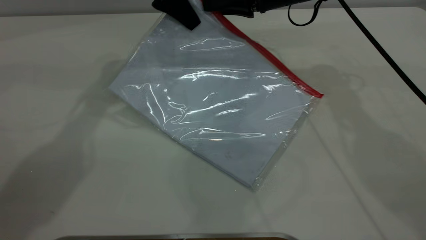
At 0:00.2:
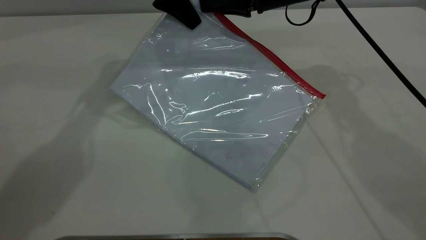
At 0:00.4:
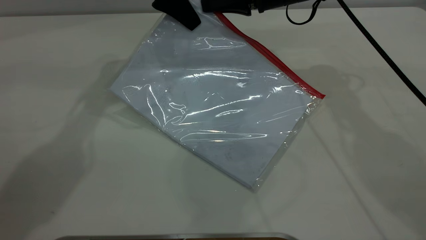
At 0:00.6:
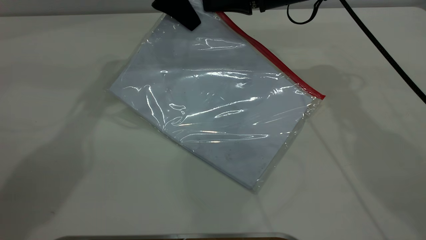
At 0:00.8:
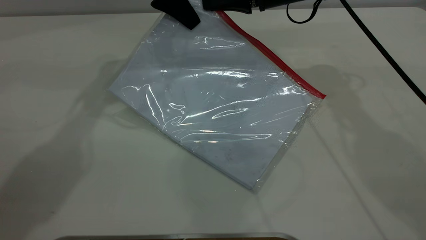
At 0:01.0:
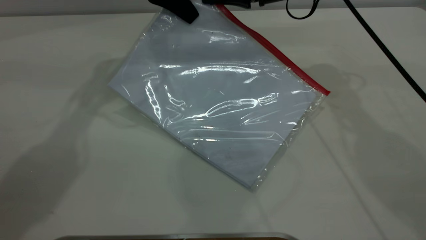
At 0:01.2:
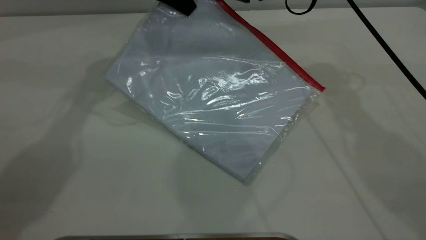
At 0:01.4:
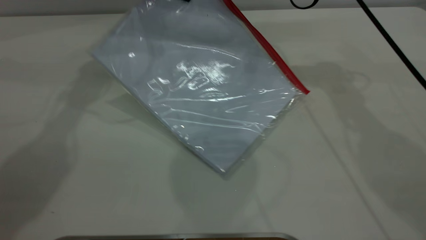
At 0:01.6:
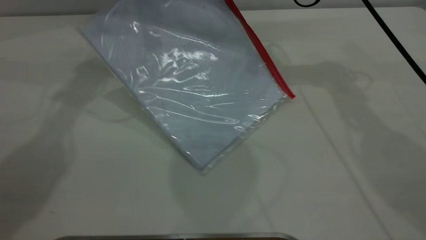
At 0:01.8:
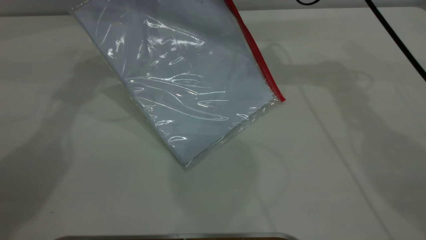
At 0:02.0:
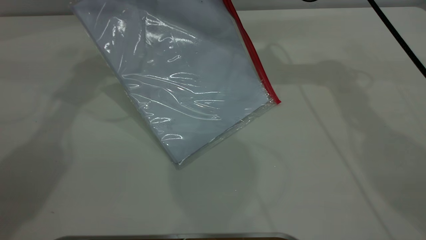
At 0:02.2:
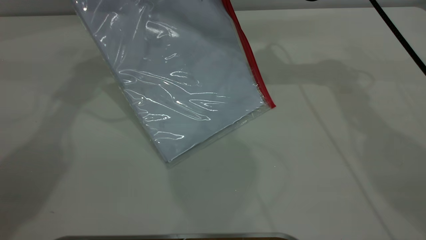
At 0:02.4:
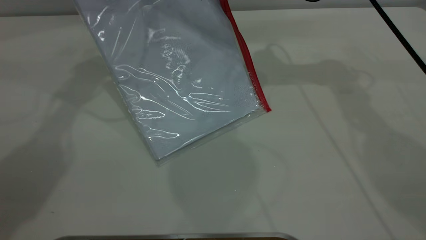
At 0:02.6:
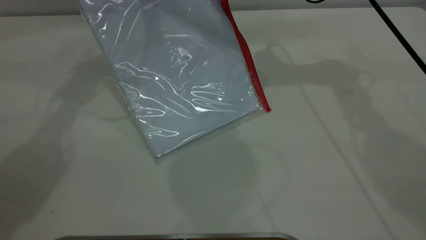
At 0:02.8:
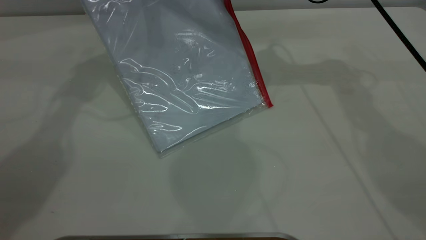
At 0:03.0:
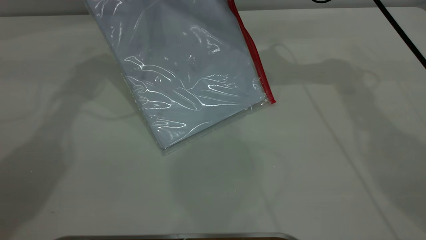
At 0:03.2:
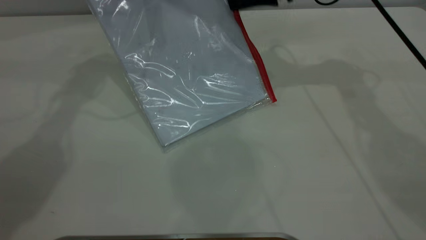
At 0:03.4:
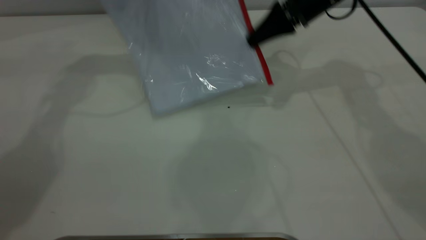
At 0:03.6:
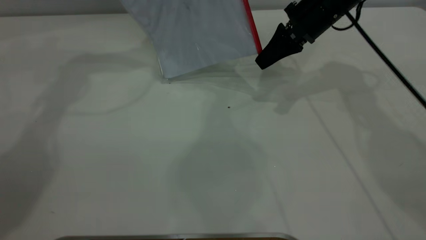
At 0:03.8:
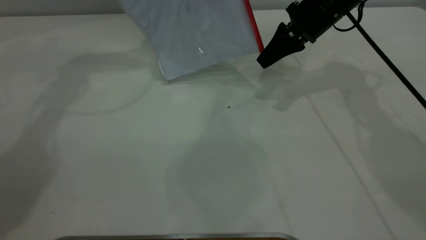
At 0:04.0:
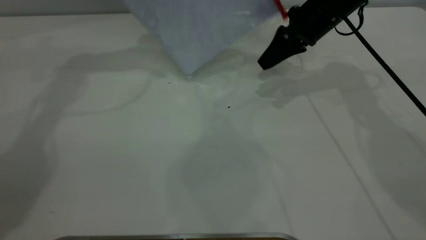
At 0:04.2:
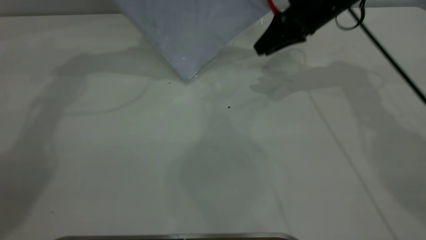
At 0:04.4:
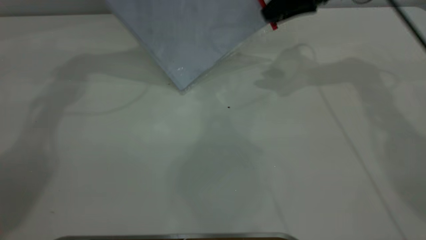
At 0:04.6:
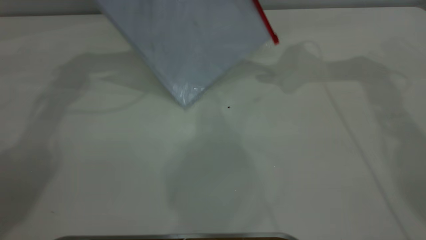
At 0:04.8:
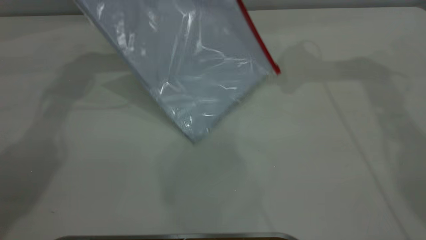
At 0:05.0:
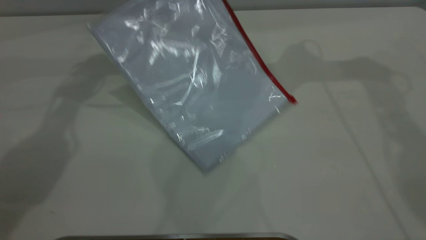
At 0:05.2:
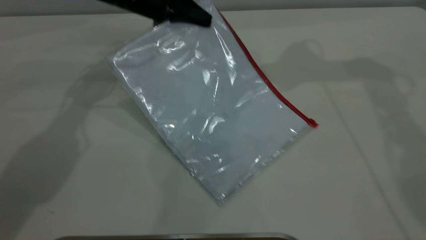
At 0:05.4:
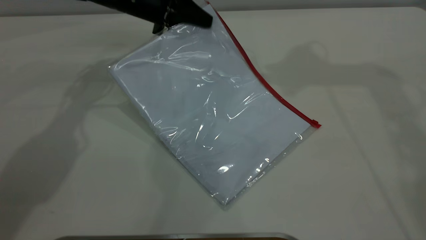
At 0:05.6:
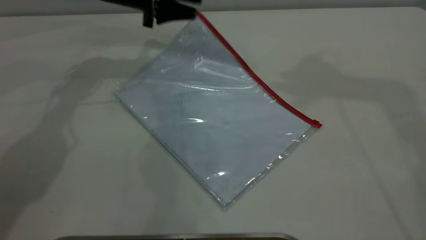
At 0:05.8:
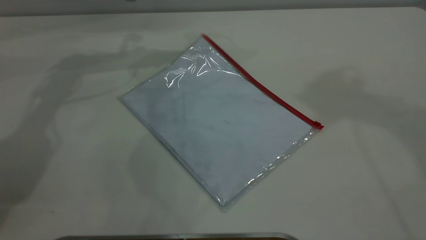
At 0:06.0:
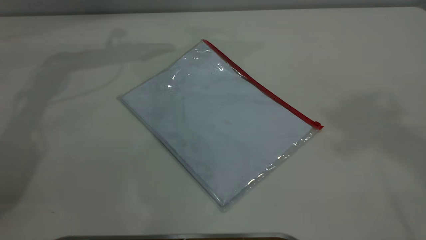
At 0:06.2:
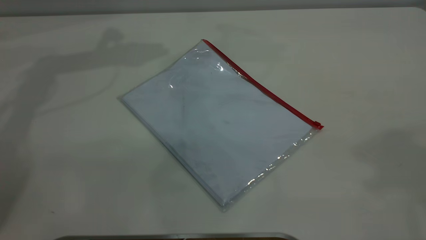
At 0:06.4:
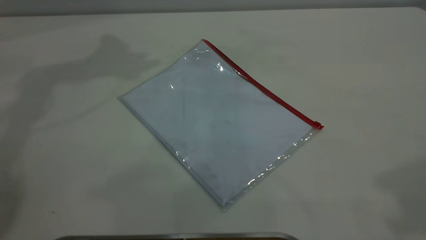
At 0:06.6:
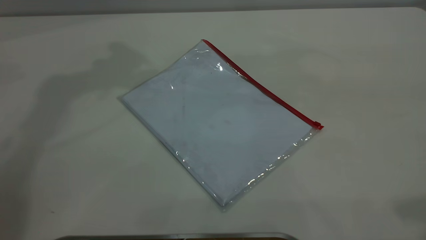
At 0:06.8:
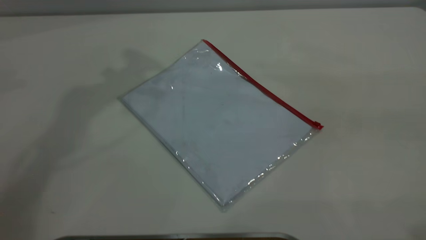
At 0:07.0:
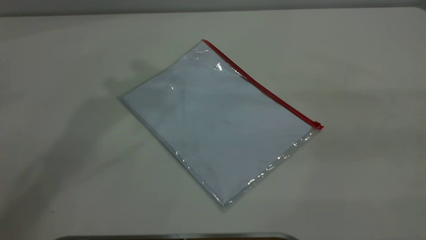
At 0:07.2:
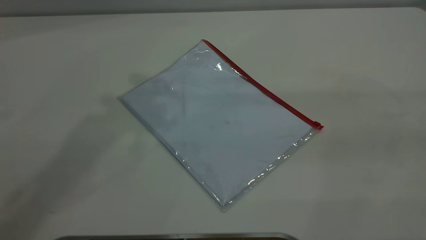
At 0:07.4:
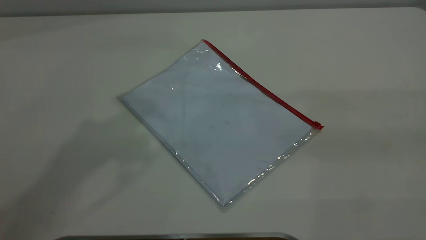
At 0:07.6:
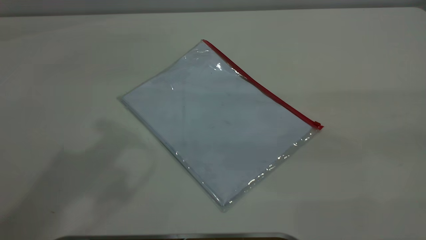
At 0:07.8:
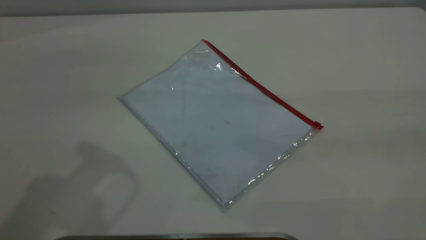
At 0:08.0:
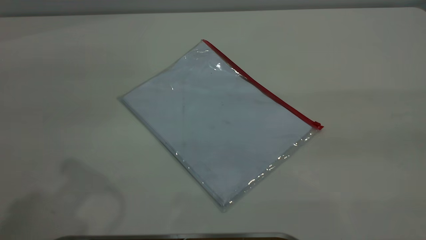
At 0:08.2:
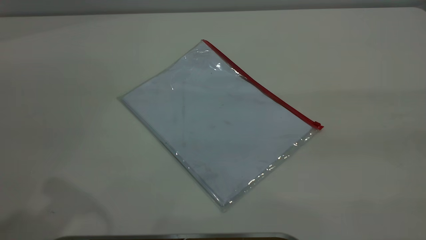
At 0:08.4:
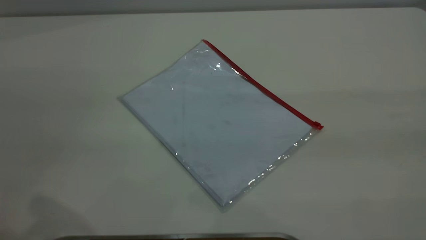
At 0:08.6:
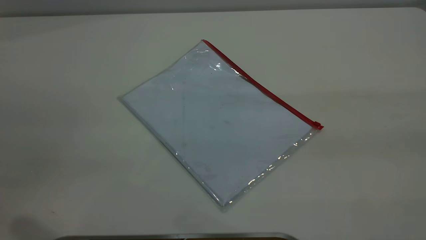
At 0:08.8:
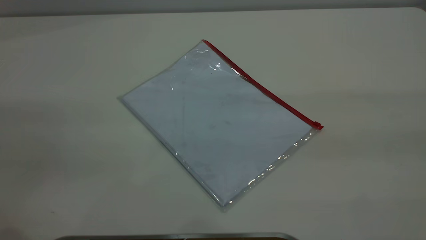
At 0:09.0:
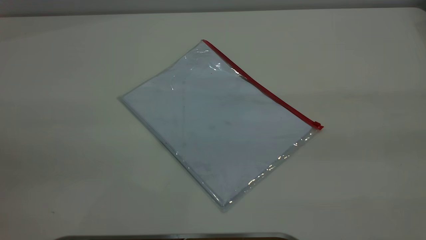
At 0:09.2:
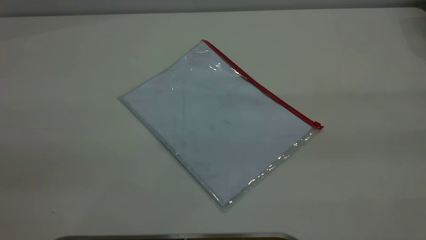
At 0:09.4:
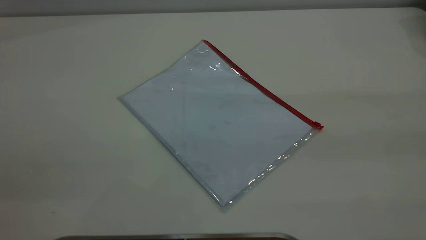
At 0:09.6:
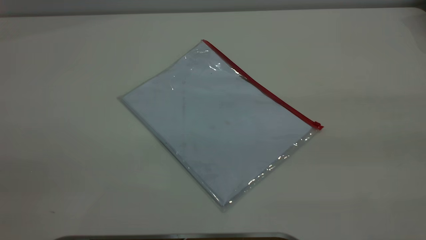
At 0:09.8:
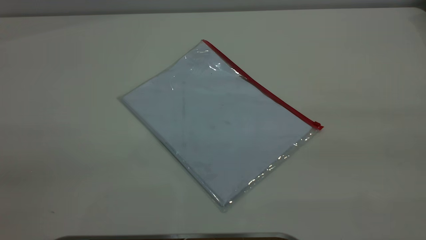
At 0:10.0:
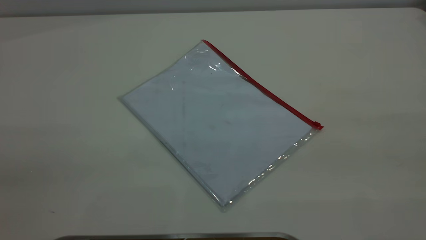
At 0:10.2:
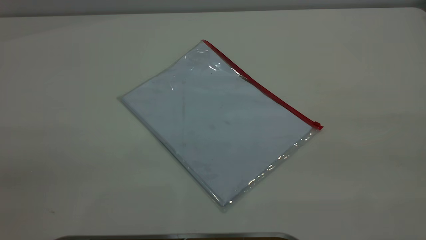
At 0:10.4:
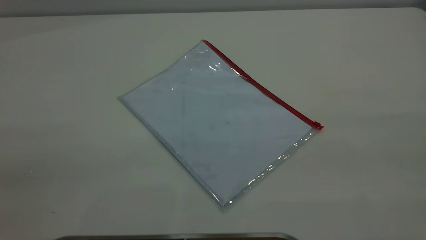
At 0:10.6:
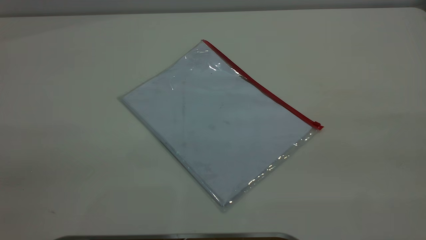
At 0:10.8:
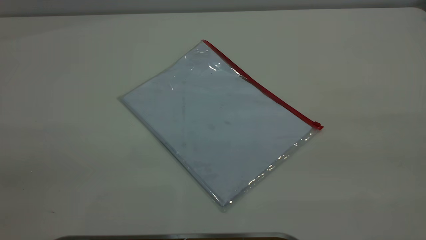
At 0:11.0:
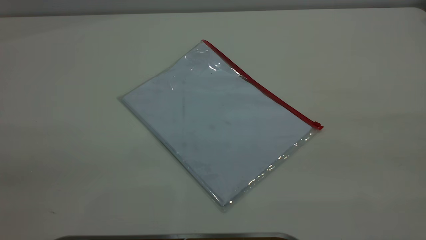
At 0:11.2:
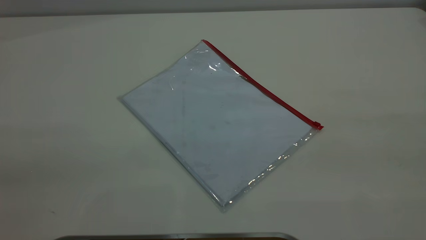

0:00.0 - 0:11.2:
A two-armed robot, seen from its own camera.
Step, 0:00.0 - 0:03.8: Pulling up the zipper on the transparent plastic bag with the right gripper to close it.
Step, 0:04.0 - 0:05.6: Place the transparent plastic bag.
0:00.0 - 0:01.6: The left gripper shifts by some 5 cm; the right gripper closes.
0:01.6 - 0:03.2: The grippers make only small movements.
0:03.2 - 0:04.8: The left gripper goes upward and returns, approximately 5 cm each way; the right gripper heads upward, covering about 10 cm, and opens.
0:04.8 - 0:06.4: The right gripper goes some 40 cm backward and upward. The left gripper goes approximately 20 cm upward, and opens its fingers.

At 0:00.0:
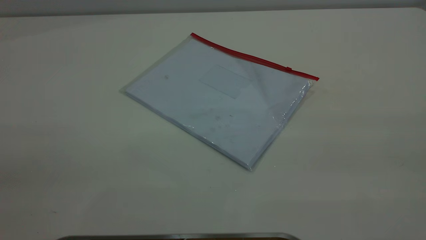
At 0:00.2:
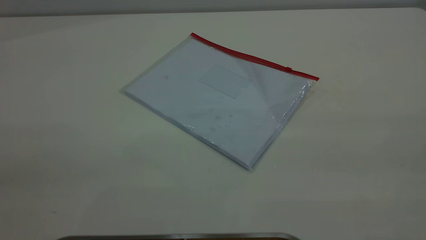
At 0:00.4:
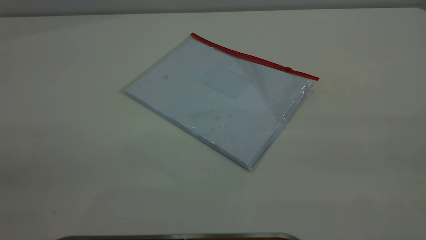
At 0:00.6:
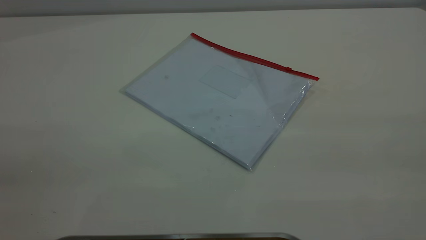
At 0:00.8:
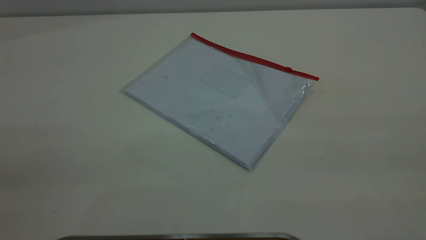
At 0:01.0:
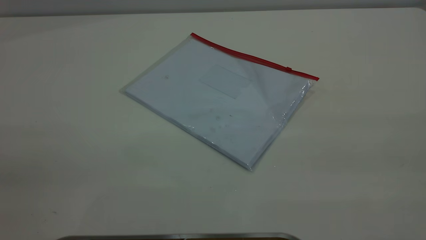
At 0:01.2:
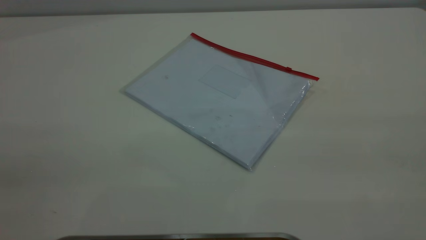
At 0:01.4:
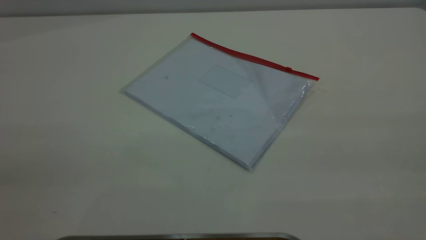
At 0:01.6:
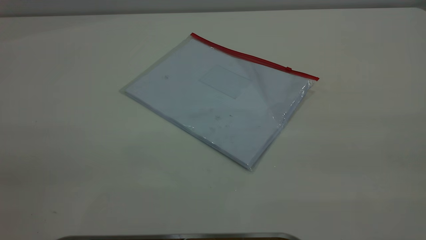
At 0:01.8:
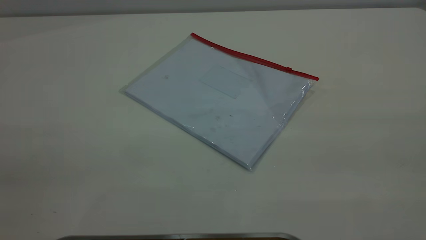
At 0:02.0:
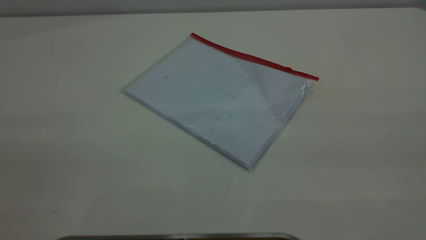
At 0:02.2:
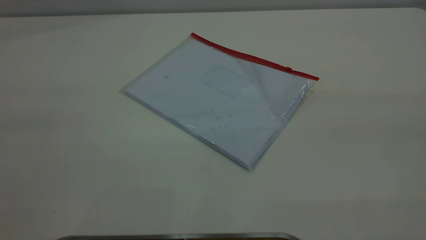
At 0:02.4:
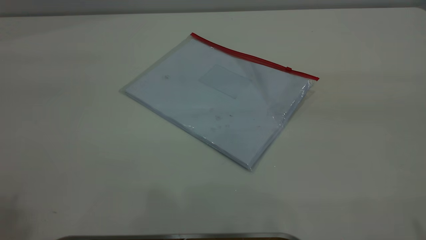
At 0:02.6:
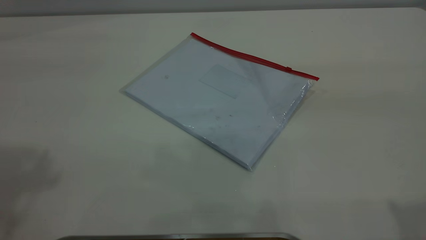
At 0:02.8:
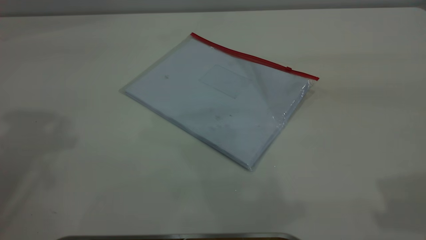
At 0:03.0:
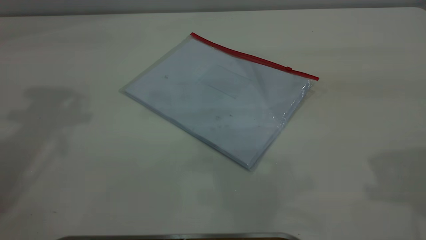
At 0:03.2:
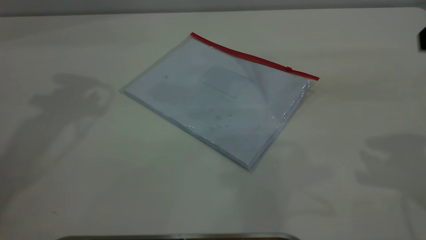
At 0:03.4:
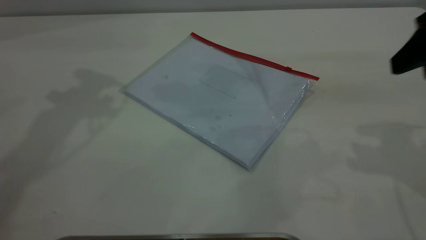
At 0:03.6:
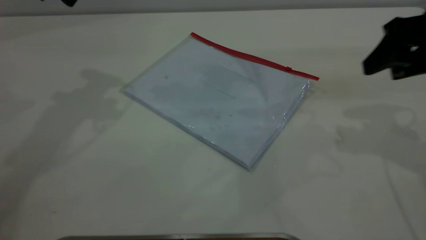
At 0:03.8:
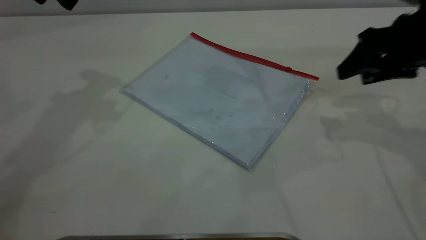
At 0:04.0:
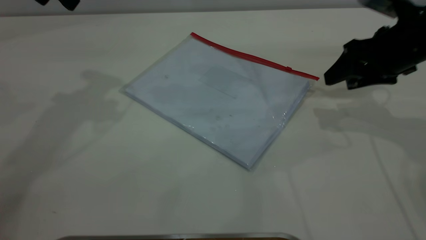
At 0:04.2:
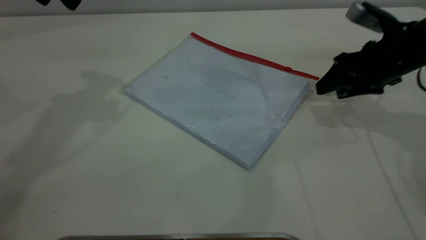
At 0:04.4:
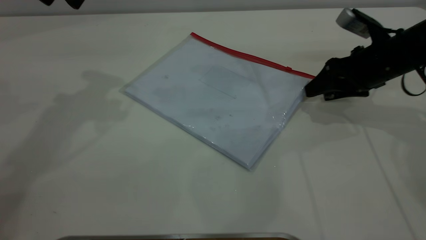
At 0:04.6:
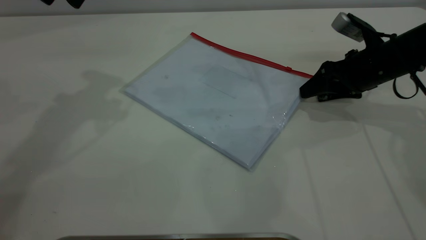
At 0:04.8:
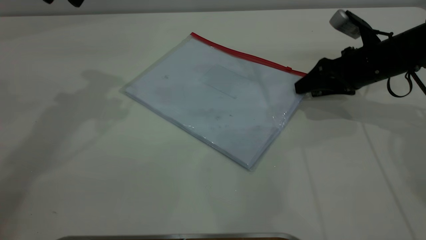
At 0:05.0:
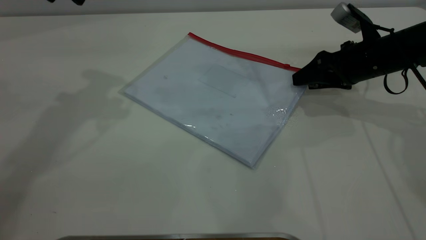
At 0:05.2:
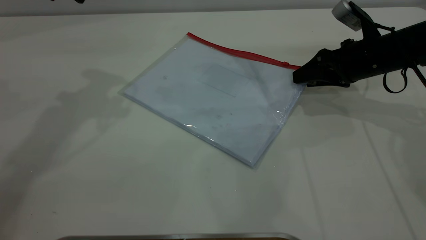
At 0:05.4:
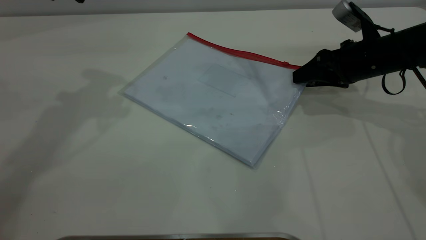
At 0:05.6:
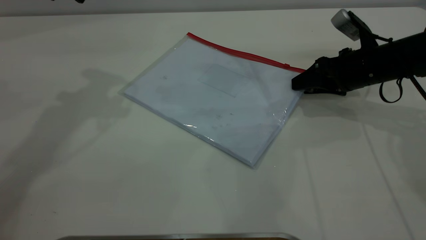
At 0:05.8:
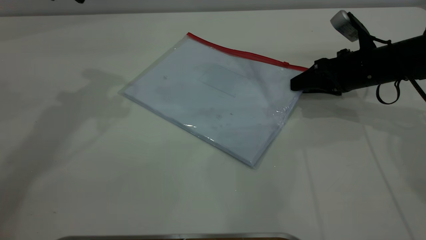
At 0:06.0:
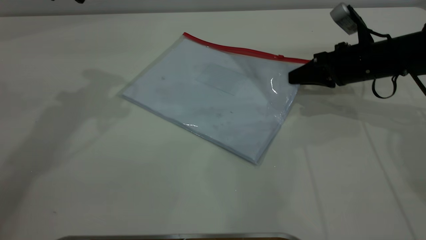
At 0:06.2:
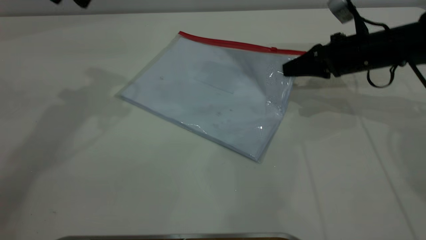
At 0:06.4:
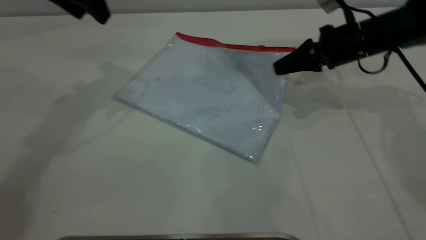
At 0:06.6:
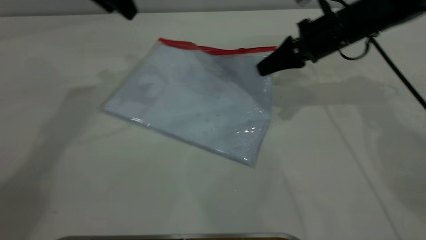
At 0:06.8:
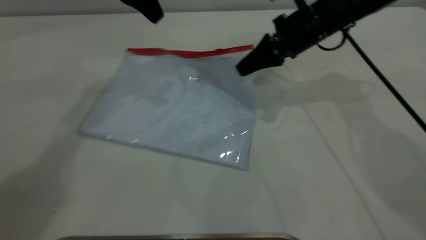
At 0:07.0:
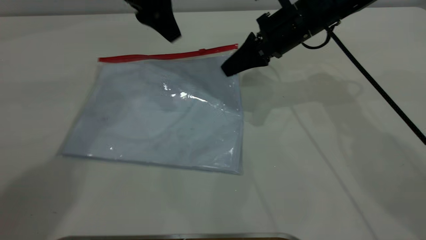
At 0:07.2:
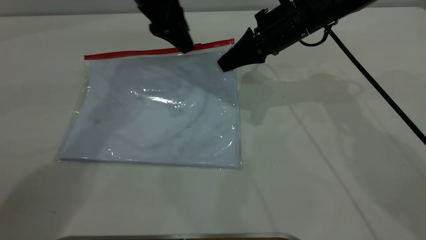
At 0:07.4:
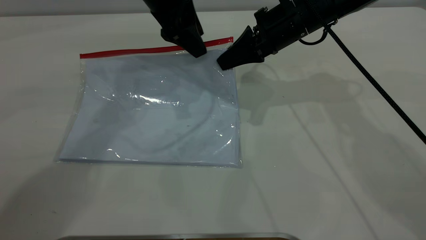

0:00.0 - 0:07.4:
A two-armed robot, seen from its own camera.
Step, 0:00.0 - 0:06.6: Pick up the transparent plastic bag with the right gripper.
0:00.0 - 0:01.4: The two grippers keep their place.
0:03.0 - 0:04.4: The right gripper heads downward and forward, covering some 30 cm.
0:04.4 - 0:06.0: The right gripper closes up.
0:06.0 - 0:07.4: The left gripper is displaced to the right and downward by roughly 15 cm. The right gripper moves to the left and upward, some 15 cm.
